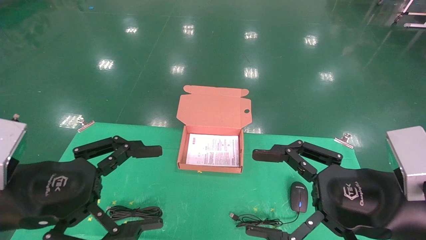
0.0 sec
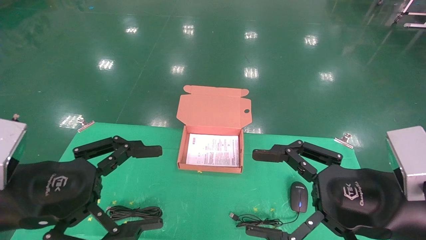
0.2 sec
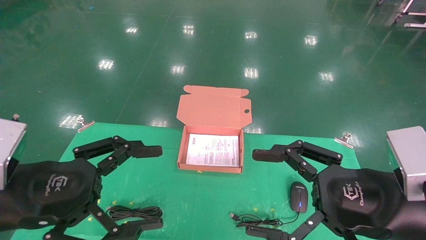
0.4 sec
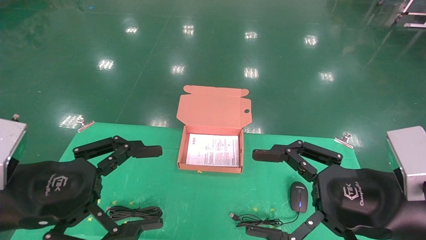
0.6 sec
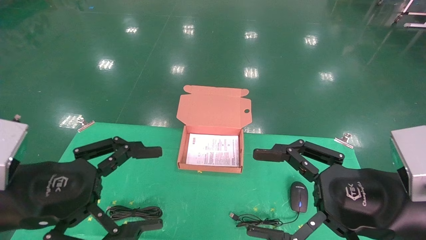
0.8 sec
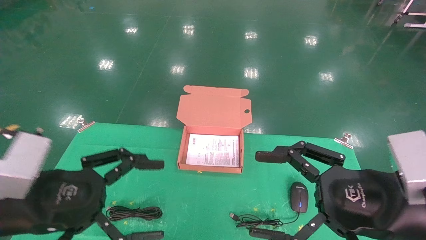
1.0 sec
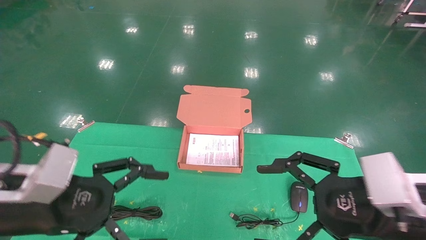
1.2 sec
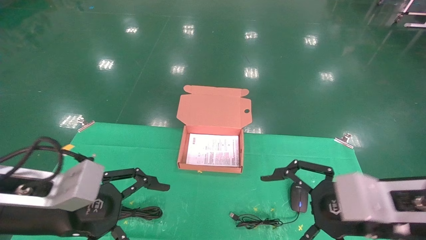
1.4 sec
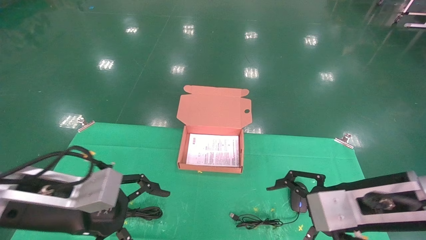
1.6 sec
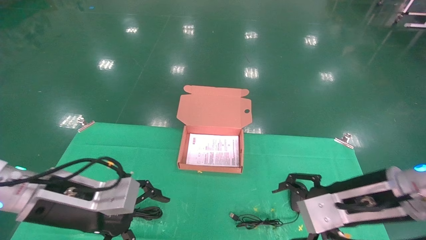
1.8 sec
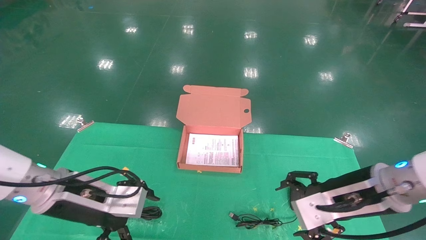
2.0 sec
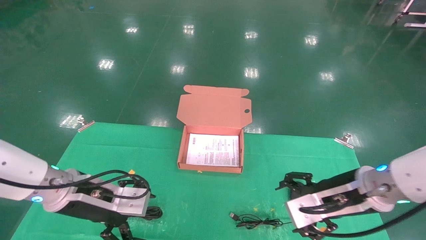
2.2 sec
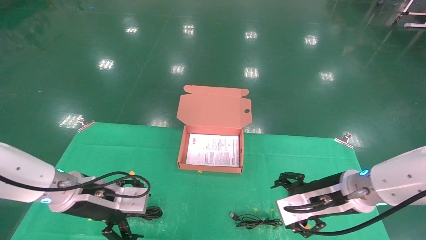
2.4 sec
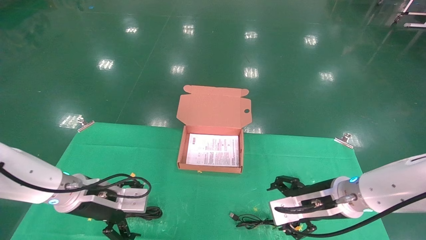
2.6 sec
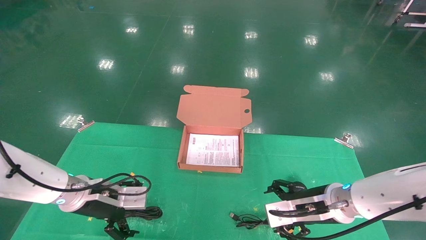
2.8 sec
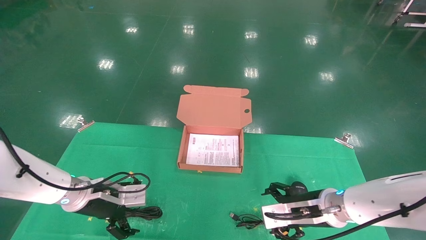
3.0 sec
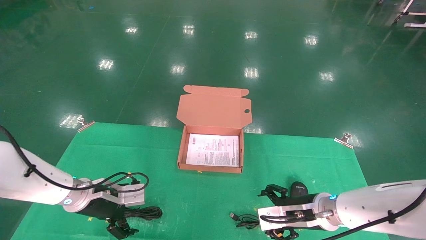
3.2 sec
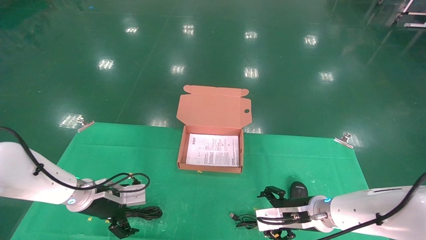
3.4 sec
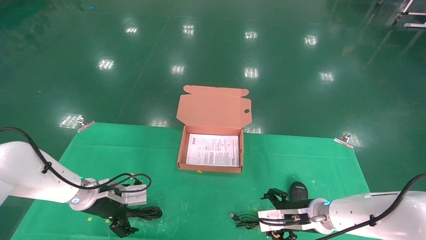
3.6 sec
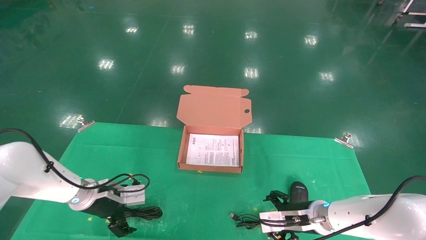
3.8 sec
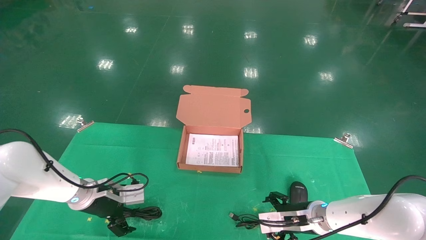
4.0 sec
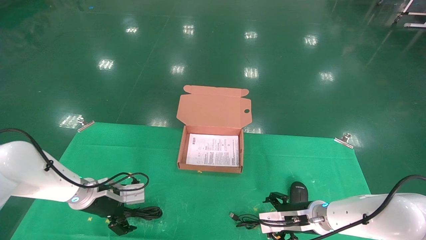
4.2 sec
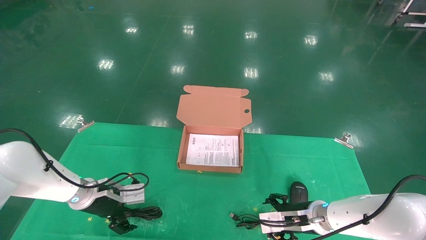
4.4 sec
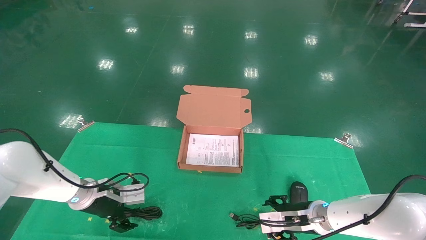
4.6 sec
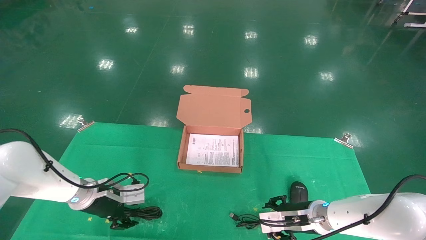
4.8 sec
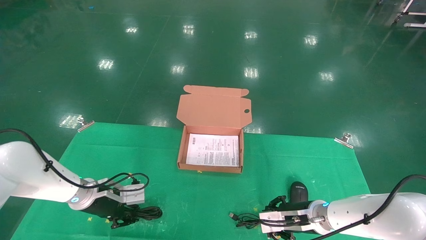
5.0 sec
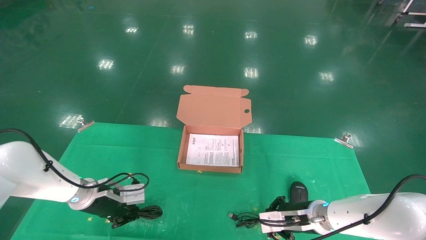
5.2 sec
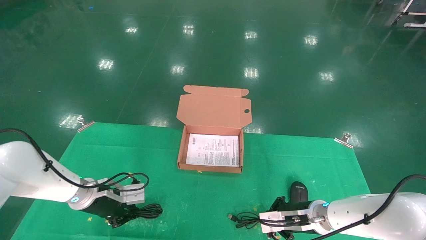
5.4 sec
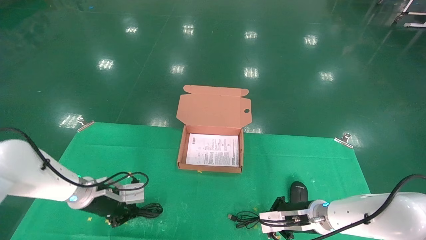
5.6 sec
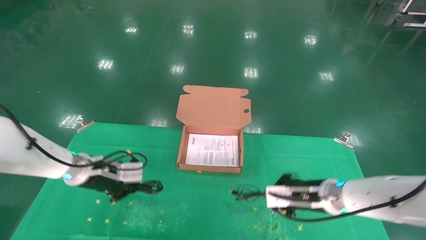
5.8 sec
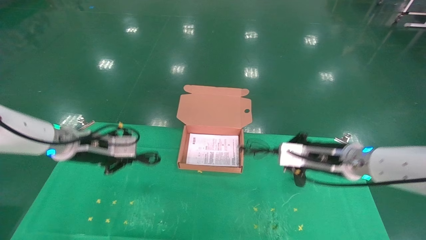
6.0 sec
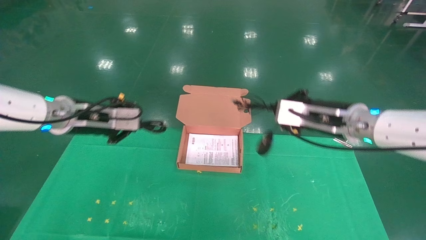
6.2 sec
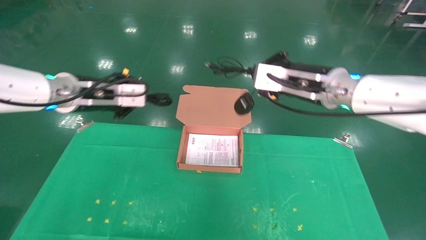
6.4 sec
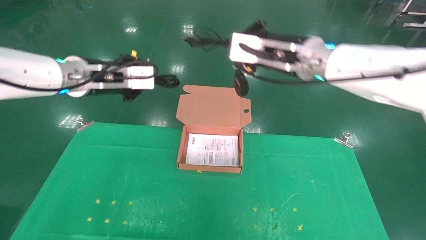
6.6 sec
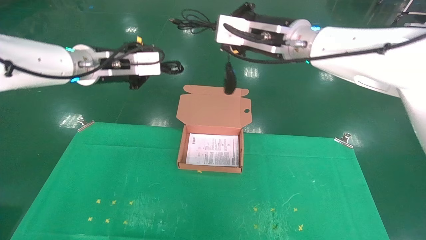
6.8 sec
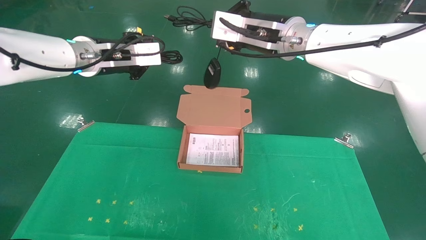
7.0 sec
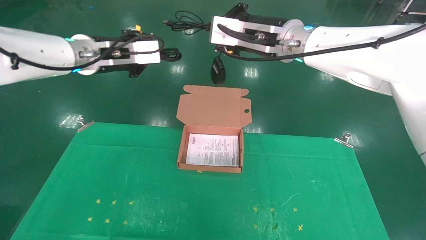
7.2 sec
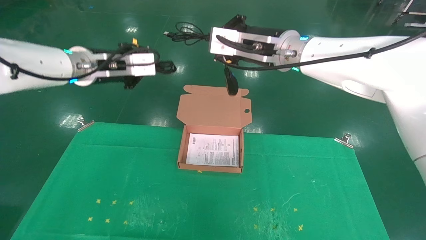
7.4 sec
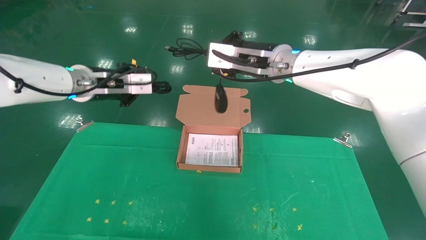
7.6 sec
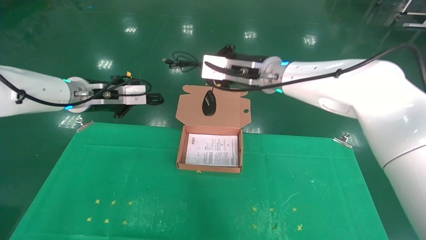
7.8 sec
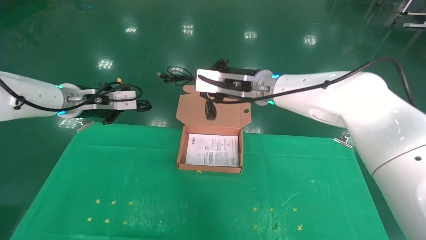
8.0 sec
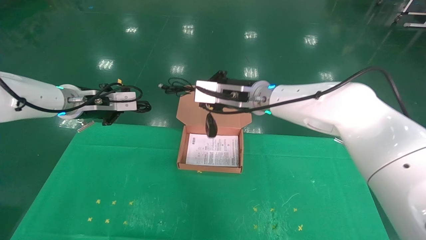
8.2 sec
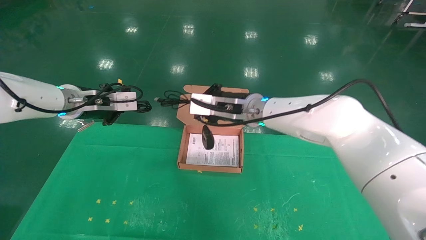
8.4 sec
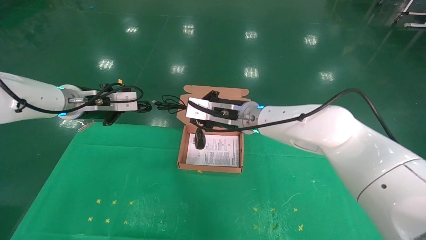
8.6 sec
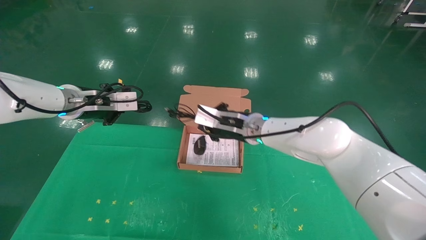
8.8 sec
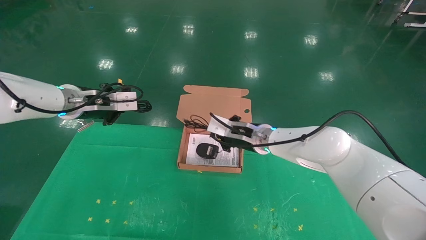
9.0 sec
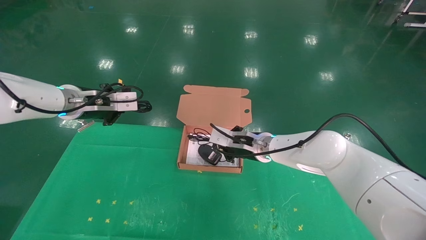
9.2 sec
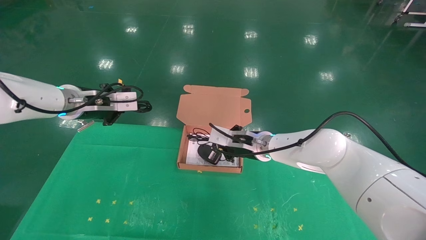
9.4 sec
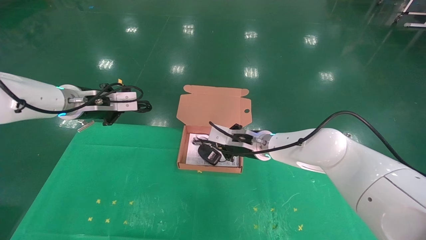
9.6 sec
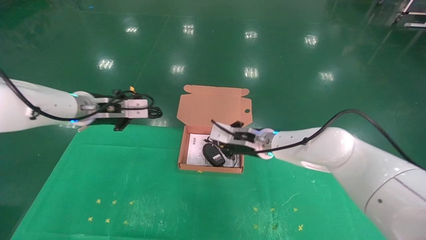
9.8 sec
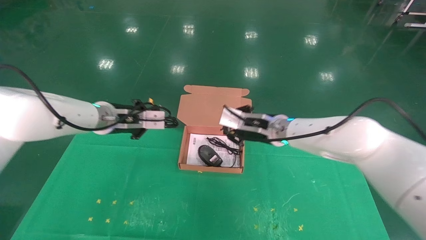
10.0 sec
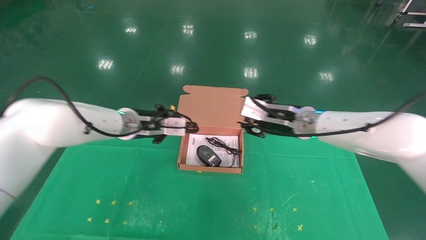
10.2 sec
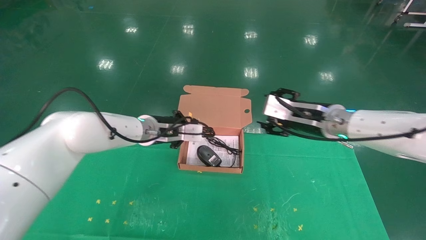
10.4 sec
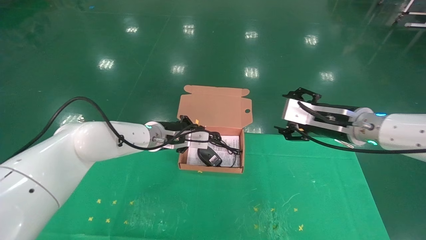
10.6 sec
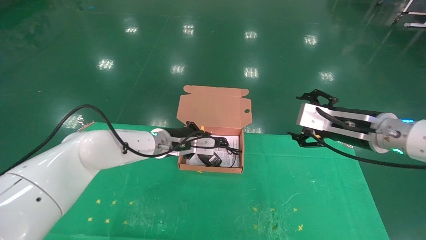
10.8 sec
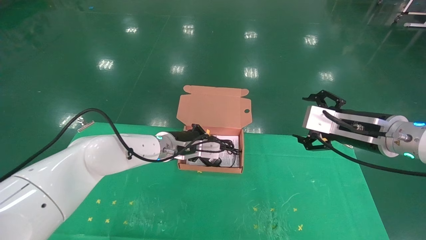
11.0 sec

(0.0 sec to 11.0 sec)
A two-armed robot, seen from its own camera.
Task of the whole recording: grasp data cable left put into box grasp mouse right put into box.
Step, 1.0 sec - 6.2 sec: Grab and pick up both the mouse and power cord from the accessory packaging area at the same time.
0.0 sec - 1.6 sec: The grippers both shift forward by approximately 5 cm.
1.6 sec - 3.2 sec: The left gripper moves forward and downward, roughly 20 cm, while the right gripper heads downward and forward, covering about 15 cm.
3.2 sec - 4.8 sec: The right gripper ends up some 5 cm from where it was, and closes up; the left gripper closes.
4.8 sec - 6.2 sec: The grippers both shift upward by roughly 25 cm. The right gripper closes. The left gripper closes up.
6.2 sec - 7.8 sec: The left gripper reaches roughly 10 cm upward, then returns, while the right gripper shifts some 15 cm to the left and upward.
7.8 sec - 9.4 sec: The right gripper moves downward, about 20 cm.
9.4 sec - 11.0 sec: The left gripper is displaced to the right and downward by roughly 20 cm. The right gripper is displaced to the right, backward and upward by some 25 cm, and opens.

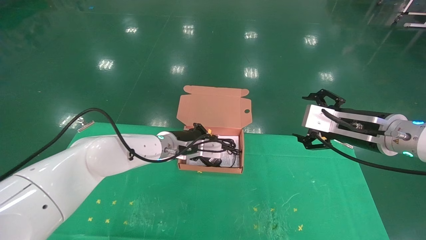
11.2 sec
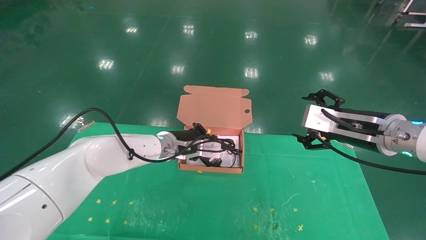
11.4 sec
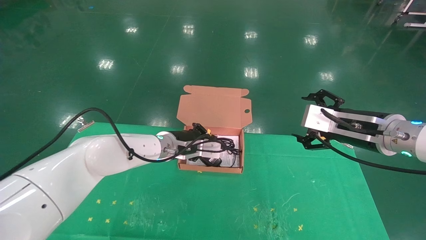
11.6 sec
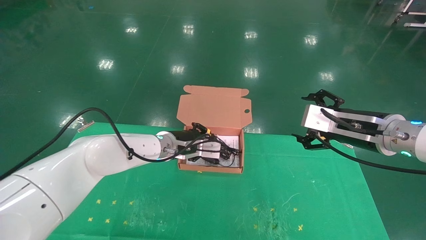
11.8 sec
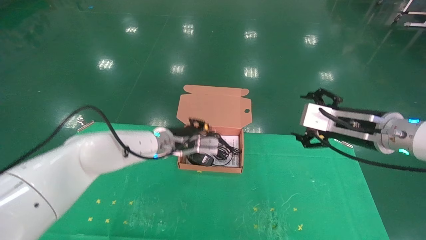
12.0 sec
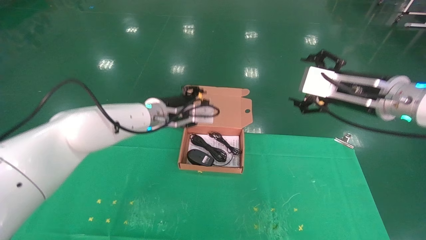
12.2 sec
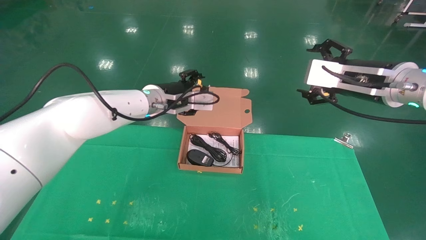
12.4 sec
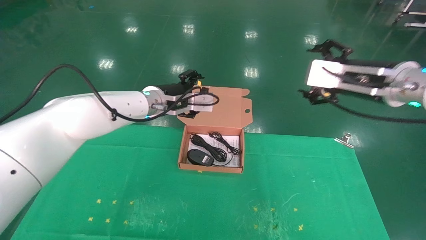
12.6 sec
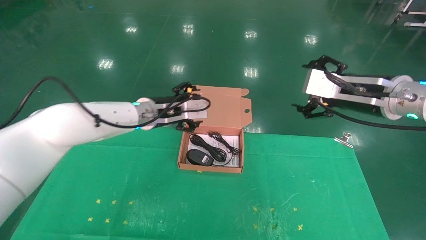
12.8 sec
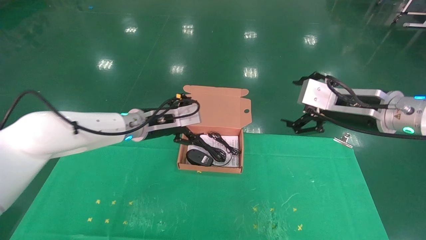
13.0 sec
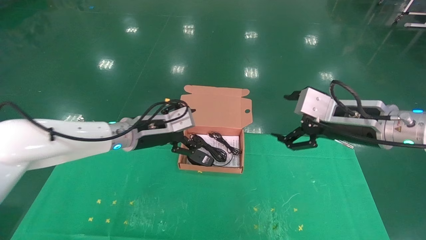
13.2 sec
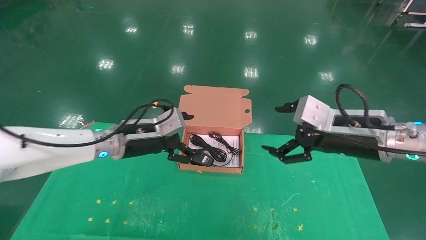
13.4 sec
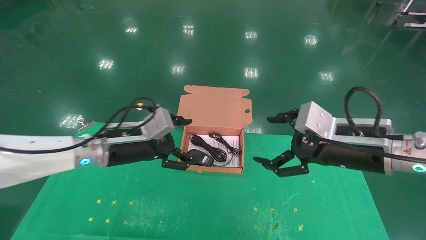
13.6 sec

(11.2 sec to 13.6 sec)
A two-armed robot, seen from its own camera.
Task of the whole recording: grasp data cable left put into box grasp mouse right put into box.
11.2 sec - 12.4 sec: Both grippers travel together upward, some 10 cm. The left gripper opens its fingers.
12.4 sec - 13.6 sec: The left gripper moves backward, to the left and downward, about 15 cm, while the right gripper goes some 10 cm downward.

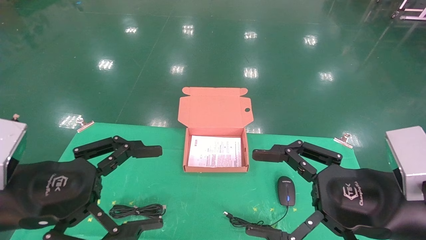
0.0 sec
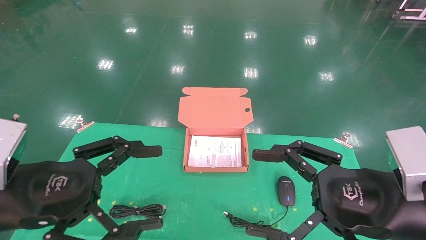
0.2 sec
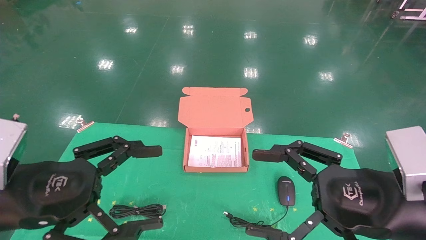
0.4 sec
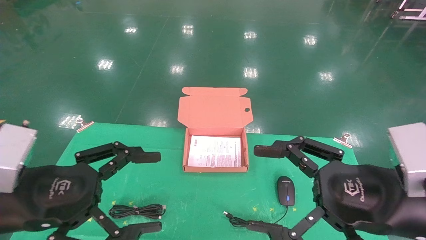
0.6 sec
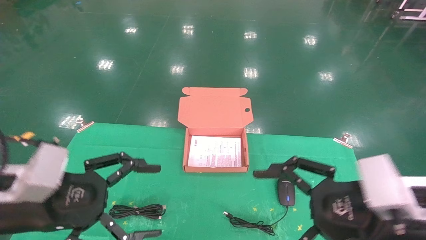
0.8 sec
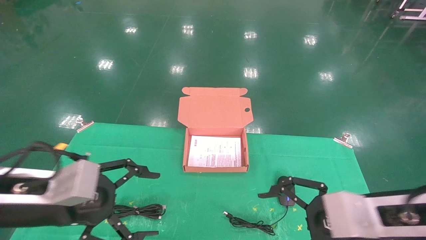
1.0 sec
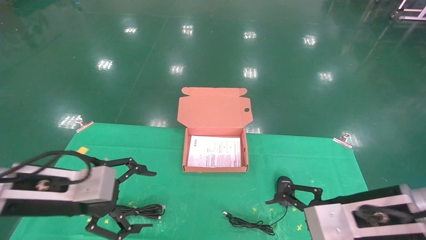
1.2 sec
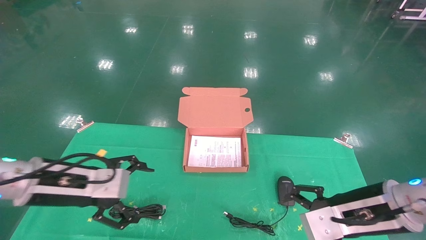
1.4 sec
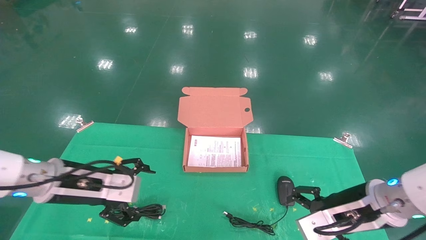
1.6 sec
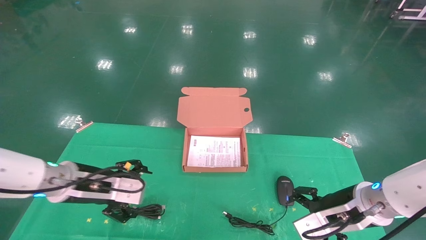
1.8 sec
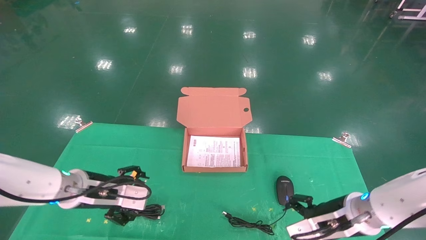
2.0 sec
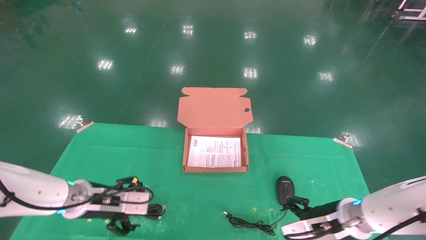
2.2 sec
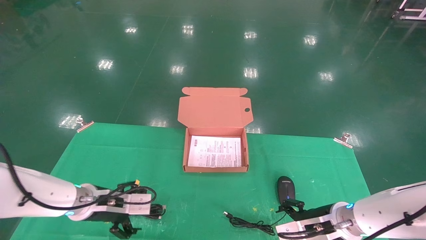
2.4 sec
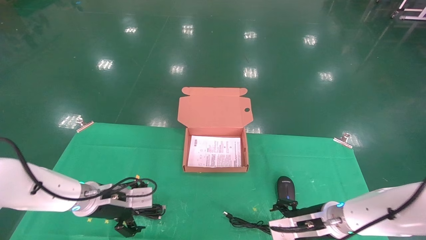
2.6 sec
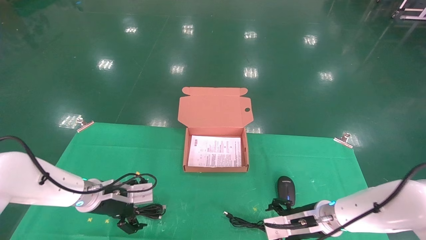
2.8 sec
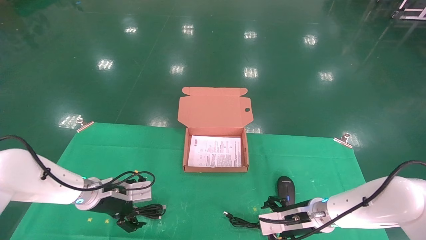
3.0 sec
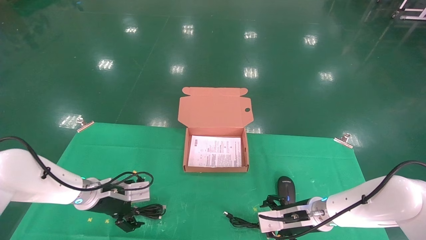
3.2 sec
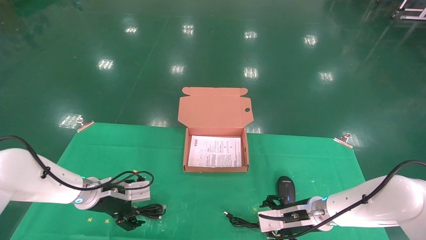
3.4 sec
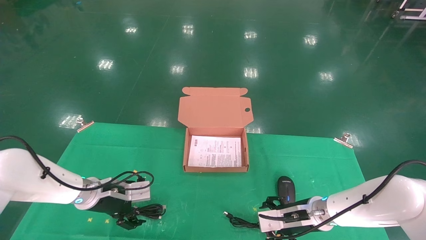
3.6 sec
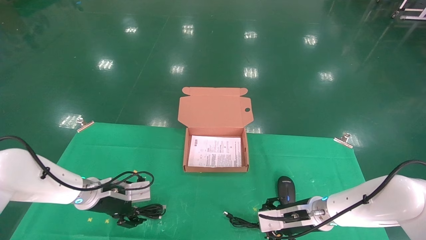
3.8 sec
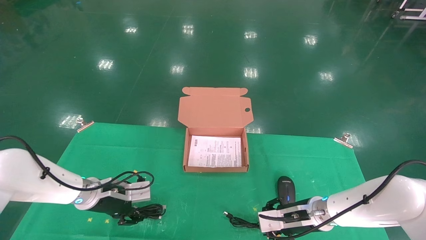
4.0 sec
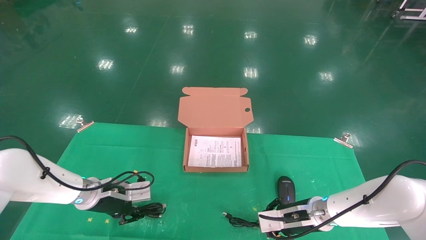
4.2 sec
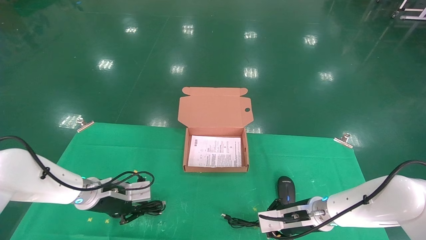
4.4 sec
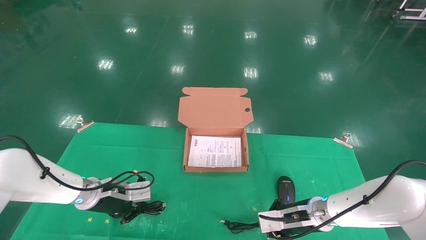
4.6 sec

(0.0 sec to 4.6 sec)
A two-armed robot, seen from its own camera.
Task of the whole recording: grasp data cable left put into box grasp mouse right put into box.
0.0 sec - 1.6 sec: Both grippers travel together forward and downward, approximately 15 cm.
1.6 sec - 3.0 sec: The right gripper heads downward and forward, covering approximately 15 cm; the left gripper is displaced forward and downward by approximately 15 cm.
3.0 sec - 4.6 sec: The right gripper closes up. Meanwhile the left gripper closes.
